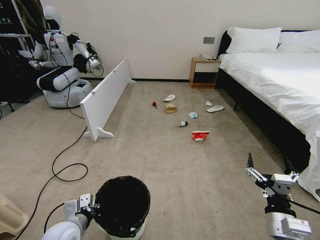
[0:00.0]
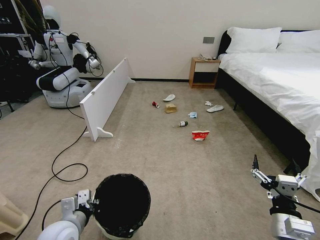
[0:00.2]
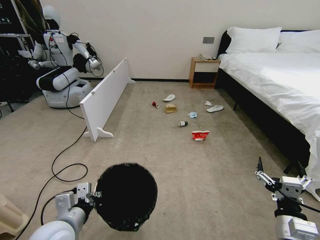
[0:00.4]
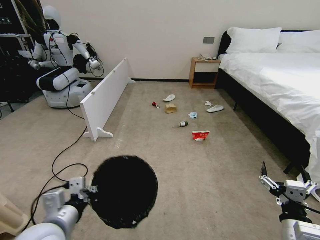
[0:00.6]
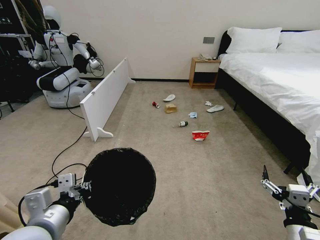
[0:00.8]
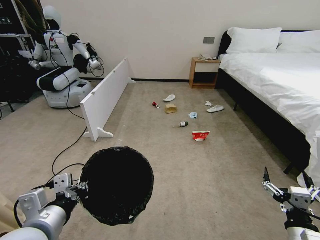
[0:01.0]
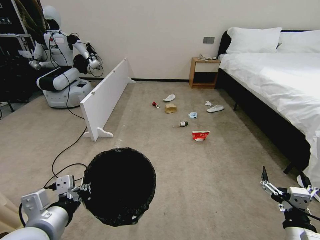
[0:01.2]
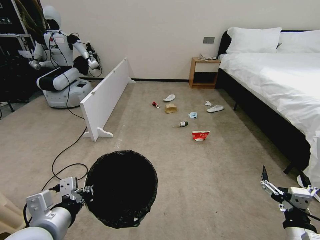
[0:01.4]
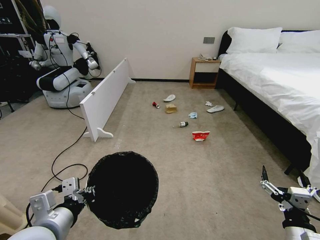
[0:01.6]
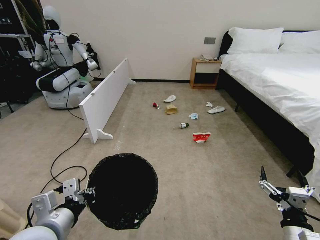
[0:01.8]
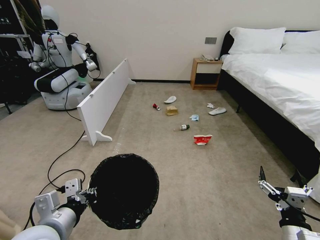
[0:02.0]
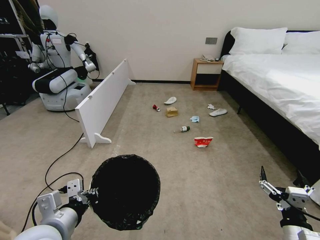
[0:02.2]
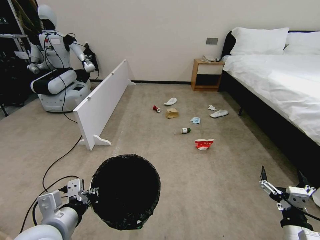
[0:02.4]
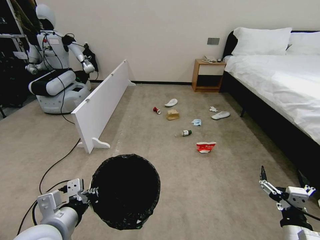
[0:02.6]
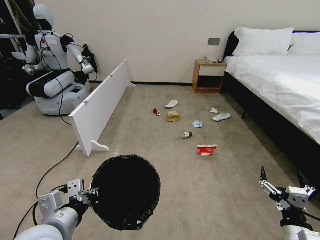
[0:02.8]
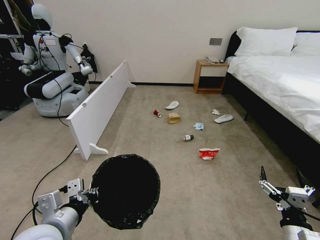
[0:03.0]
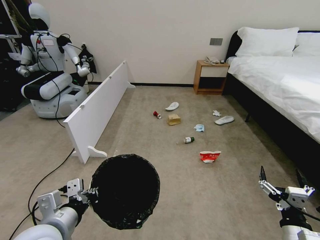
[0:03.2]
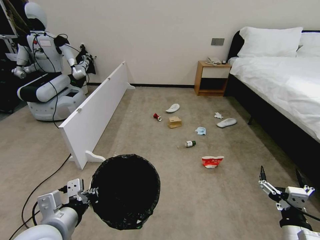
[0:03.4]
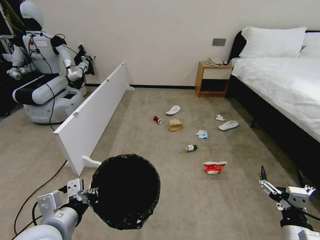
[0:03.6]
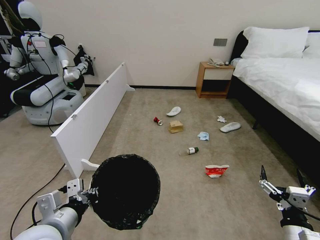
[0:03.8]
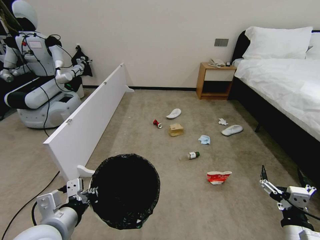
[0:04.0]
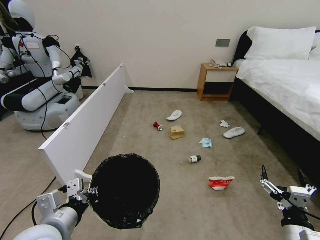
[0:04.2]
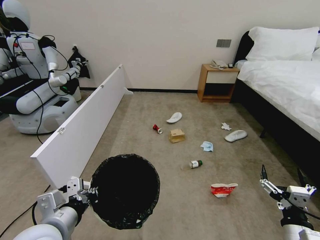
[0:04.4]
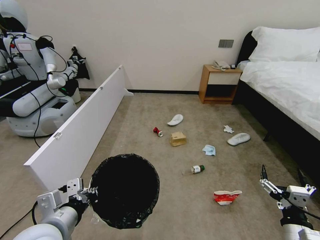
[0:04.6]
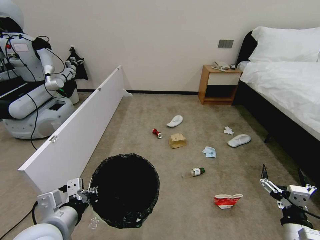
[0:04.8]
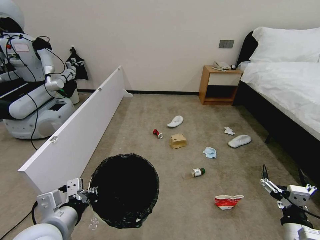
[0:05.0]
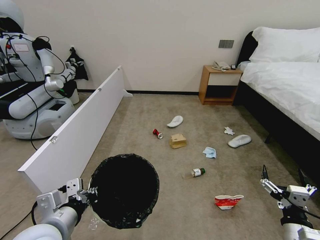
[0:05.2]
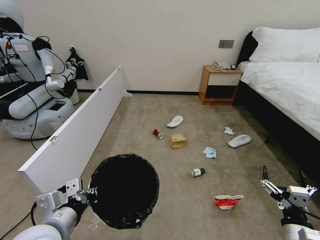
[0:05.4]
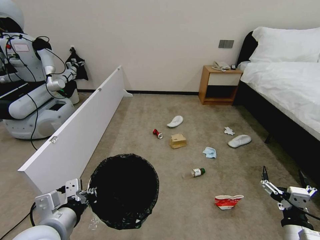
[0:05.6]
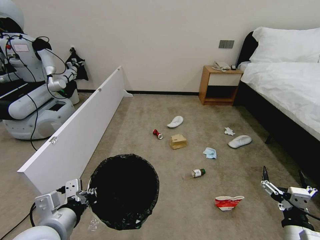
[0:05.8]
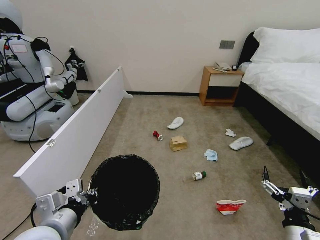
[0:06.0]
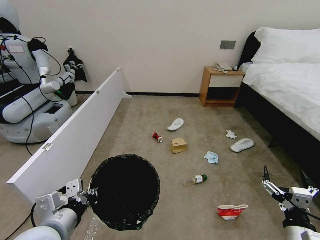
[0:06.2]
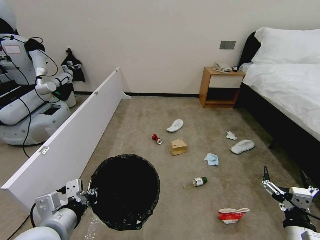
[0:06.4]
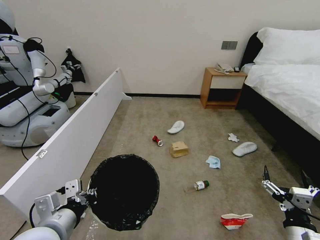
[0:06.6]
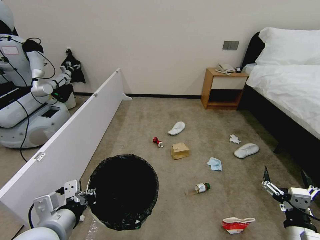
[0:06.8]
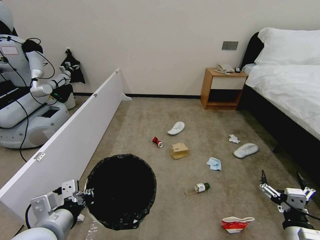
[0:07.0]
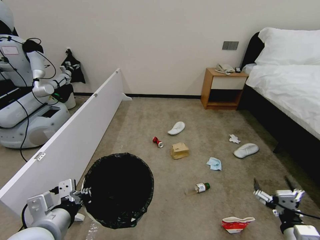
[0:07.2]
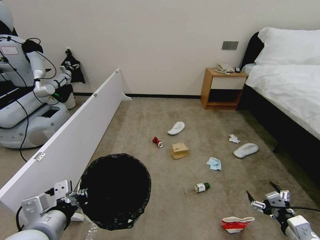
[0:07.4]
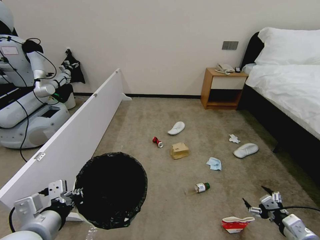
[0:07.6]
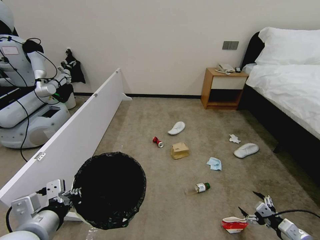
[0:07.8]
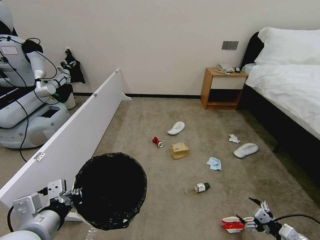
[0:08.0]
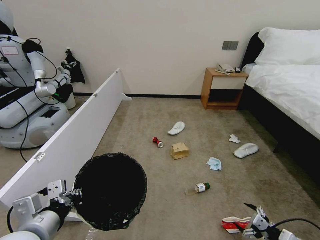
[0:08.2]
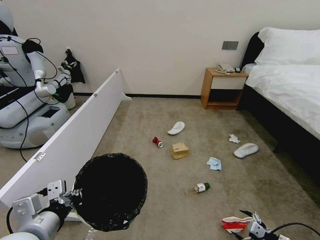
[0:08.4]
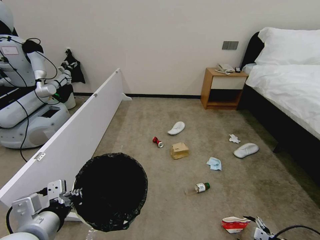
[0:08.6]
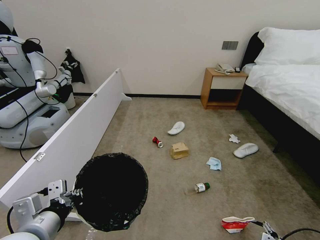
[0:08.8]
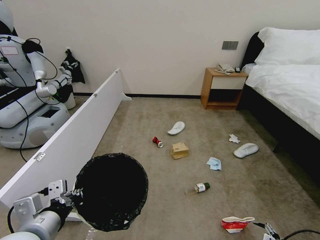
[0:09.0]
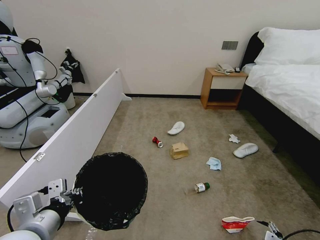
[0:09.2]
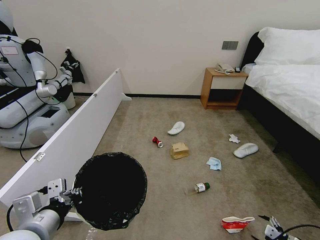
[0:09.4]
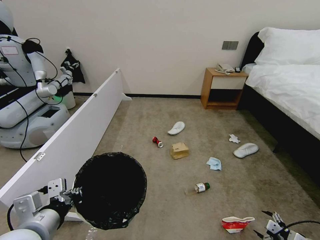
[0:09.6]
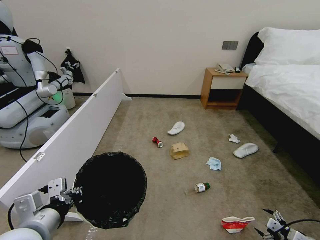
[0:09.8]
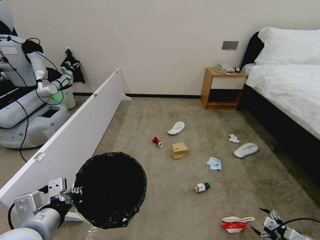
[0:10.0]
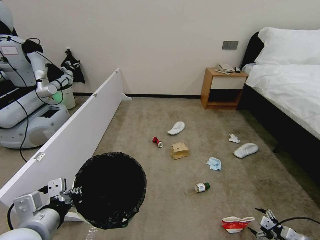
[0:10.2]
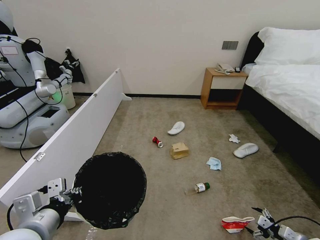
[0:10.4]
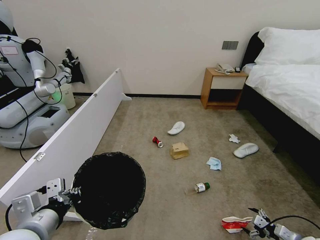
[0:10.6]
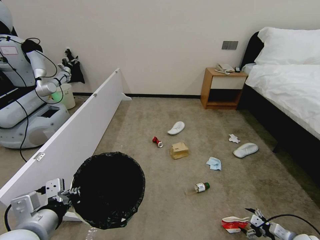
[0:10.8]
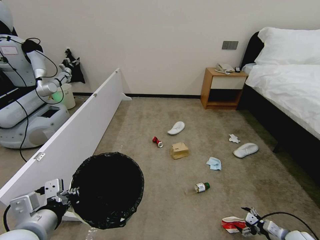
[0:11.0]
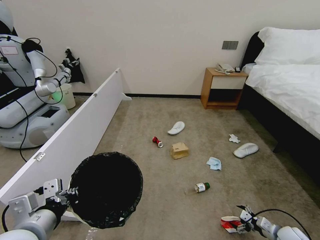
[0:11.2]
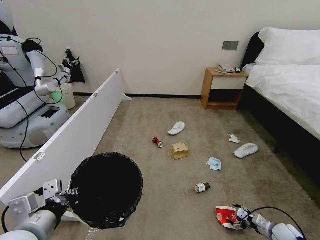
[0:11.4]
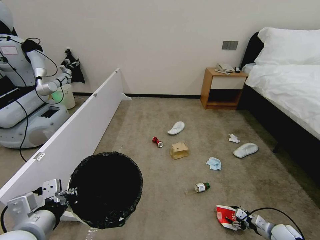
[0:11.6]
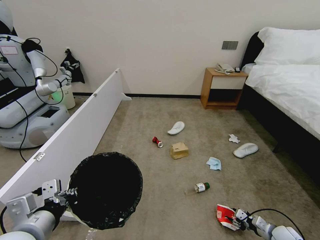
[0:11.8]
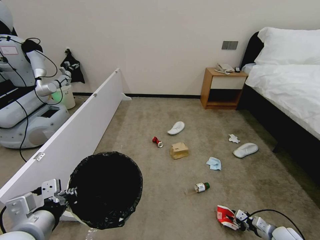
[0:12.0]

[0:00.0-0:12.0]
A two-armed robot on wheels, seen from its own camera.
Task of the whole recording: Pick up the trash bin, then pick up the garbage from the floor and place it into the trash bin.
0:00.0 to 0:01.6: The right gripper moves roughly 5 cm, while the left gripper goes about 15 cm upward and backward.
0:04.4 to 0:06.0: Both grippers stay put.
0:06.0 to 0:07.6: The right gripper goes approximately 10 cm to the right.
0:07.6 to 0:09.0: The right gripper heads downward and to the right, covering about 10 cm.
0:09.0 to 0:10.4: The right gripper is displaced forward by some 5 cm.
0:10.4 to 0:12.0: The right gripper is displaced downward and forward by some 10 cm, and closes up.

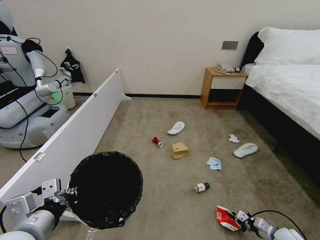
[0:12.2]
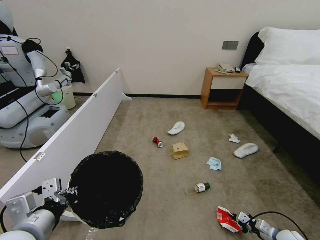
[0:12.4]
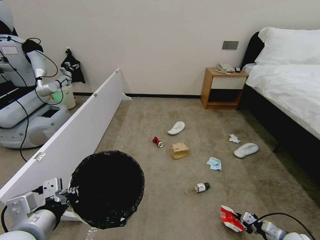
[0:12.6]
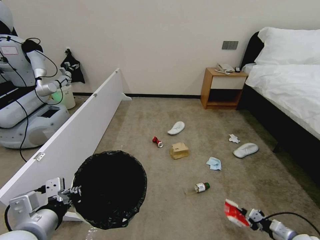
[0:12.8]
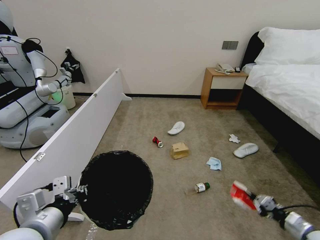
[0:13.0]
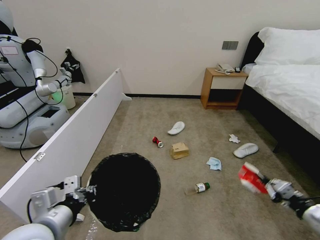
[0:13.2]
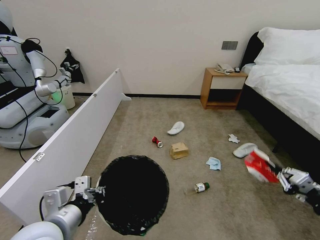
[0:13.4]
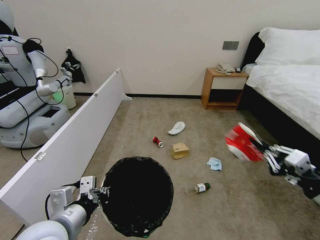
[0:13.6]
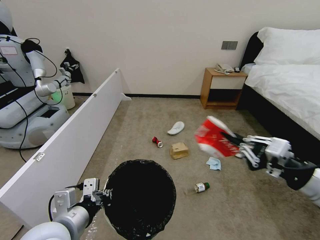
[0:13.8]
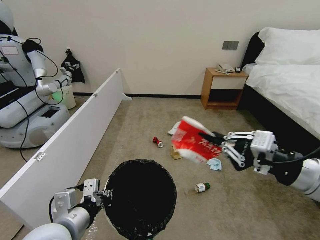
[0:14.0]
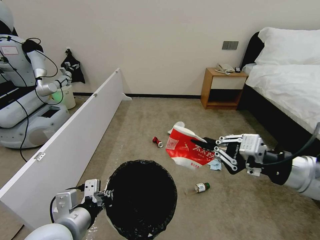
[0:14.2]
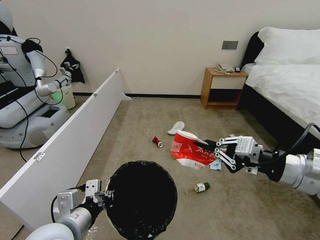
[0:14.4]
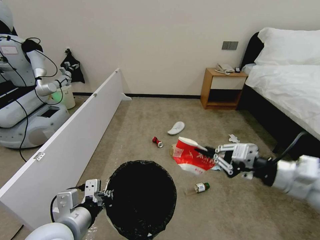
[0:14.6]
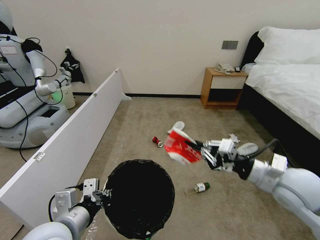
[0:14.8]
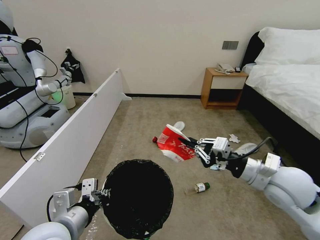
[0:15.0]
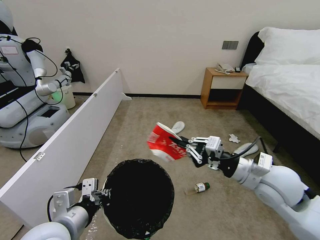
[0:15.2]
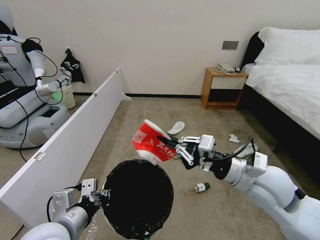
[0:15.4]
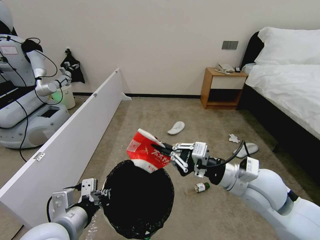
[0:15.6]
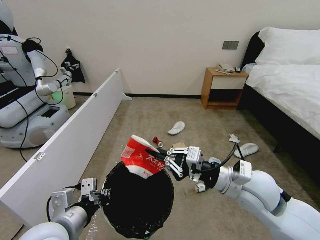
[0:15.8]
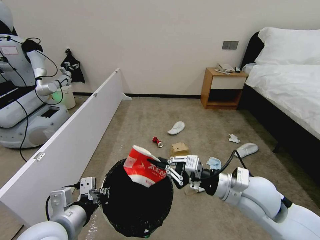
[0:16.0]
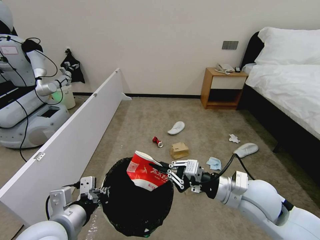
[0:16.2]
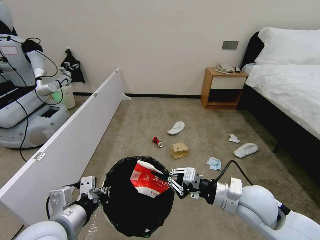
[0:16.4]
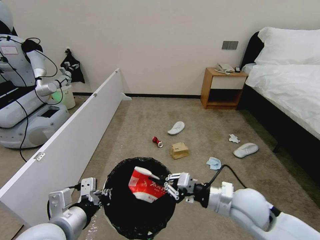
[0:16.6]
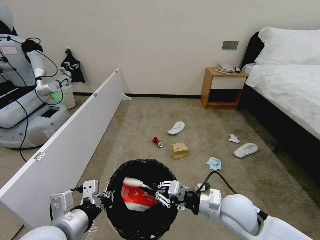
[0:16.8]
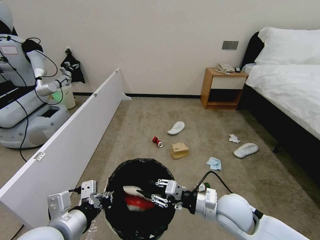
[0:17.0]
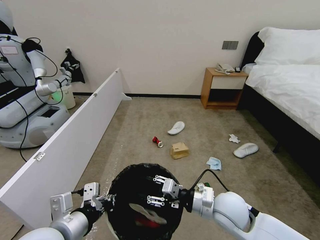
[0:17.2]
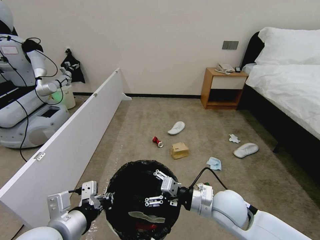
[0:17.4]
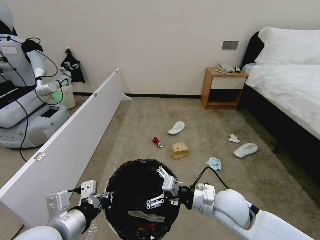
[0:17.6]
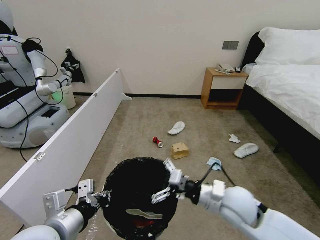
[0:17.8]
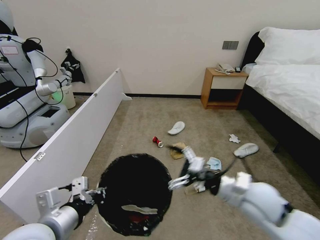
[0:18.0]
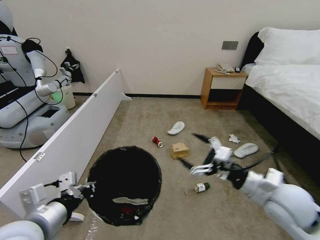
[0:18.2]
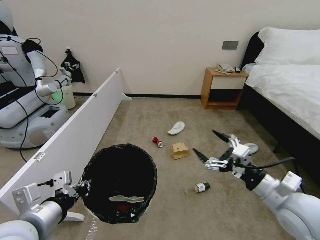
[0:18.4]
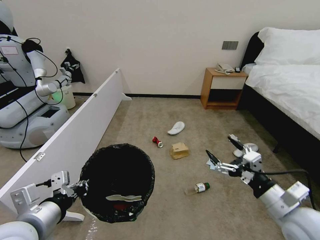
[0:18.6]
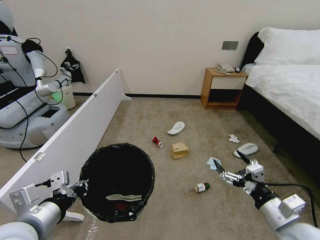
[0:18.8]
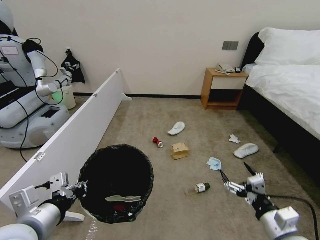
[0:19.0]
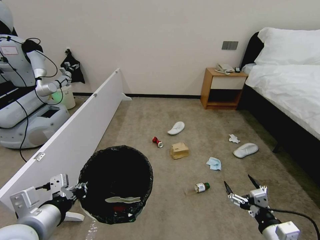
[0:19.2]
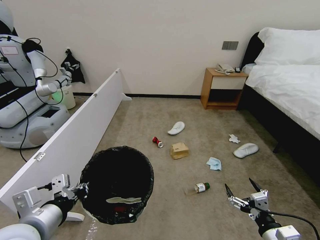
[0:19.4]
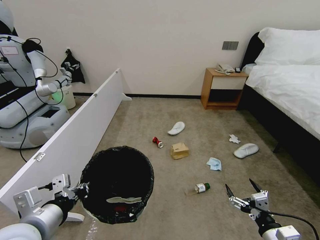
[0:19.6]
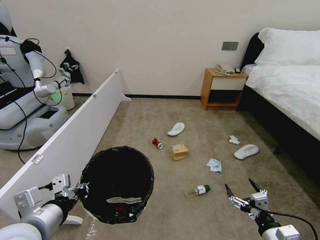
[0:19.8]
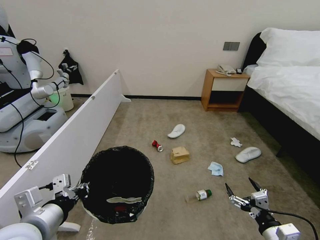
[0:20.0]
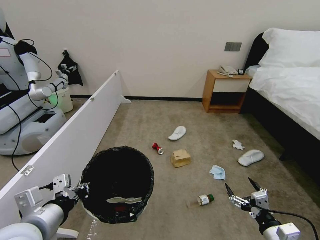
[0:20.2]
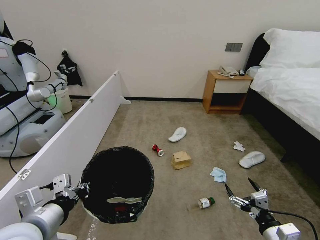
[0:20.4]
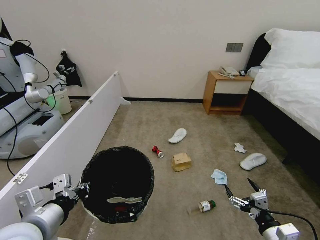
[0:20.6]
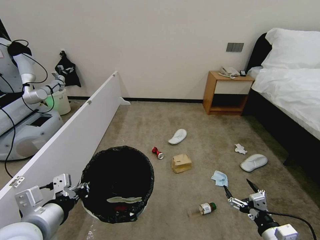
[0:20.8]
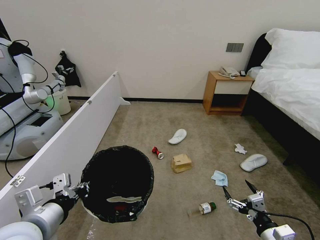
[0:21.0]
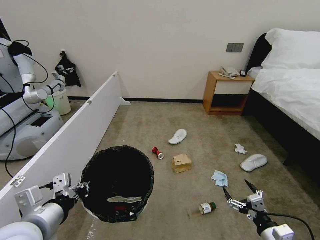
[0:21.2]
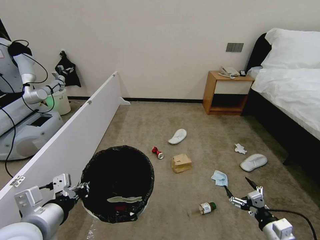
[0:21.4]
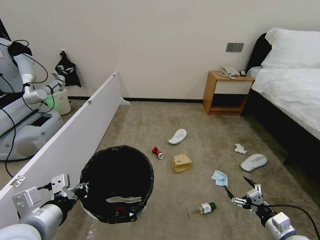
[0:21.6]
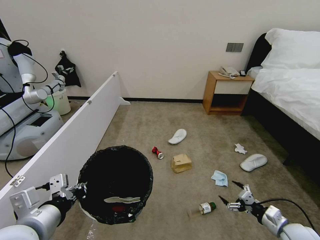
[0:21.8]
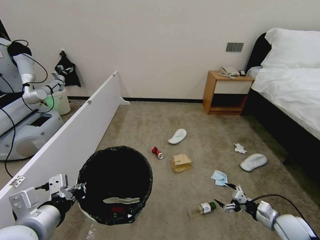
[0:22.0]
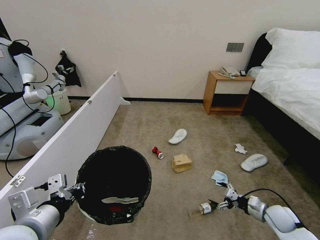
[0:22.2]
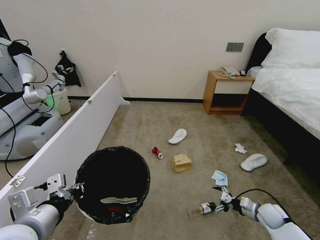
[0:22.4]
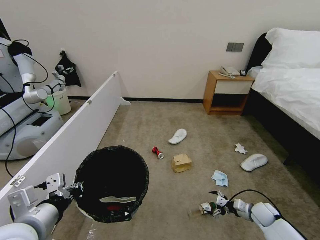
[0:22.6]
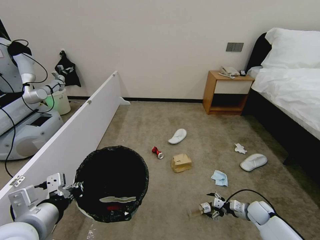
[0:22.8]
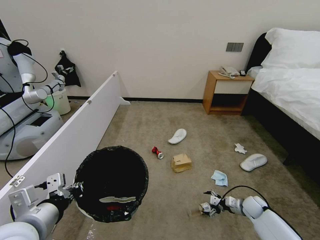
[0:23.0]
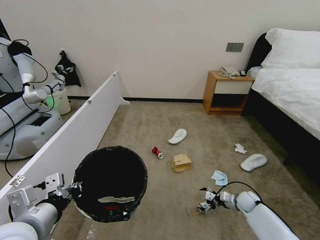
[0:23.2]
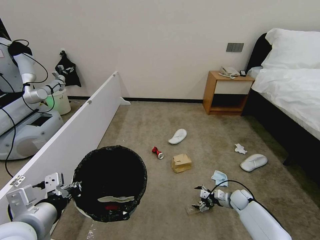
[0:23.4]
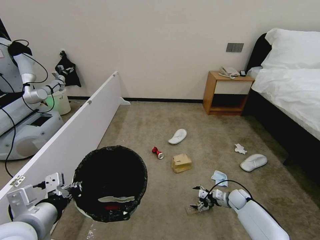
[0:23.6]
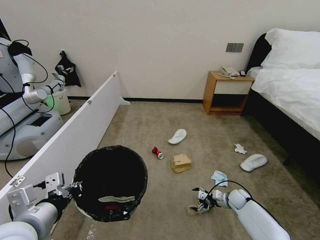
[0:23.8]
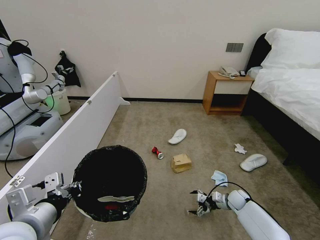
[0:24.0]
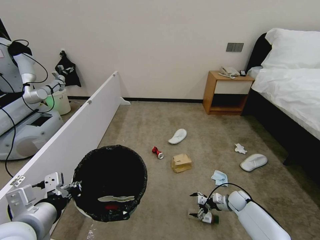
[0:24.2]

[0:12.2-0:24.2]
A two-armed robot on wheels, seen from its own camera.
Task of the whole recording: Pick up the trash bin, then pick up the garbage from the floor and place it into the trash bin.
0:12.2 to 0:13.8: The right gripper heads upward, covering approximately 40 cm; the left gripper changes place by some 5 cm.
0:13.8 to 0:15.2: The right gripper travels to the left and forward by about 15 cm.
0:15.2 to 0:16.6: The right gripper shifts approximately 10 cm downward.
0:16.6 to 0:18.2: The right gripper is displaced to the right and upward by roughly 10 cm, and opens.
0:18.2 to 0:19.8: The right gripper moves downward and backward, about 20 cm.
0:19.8 to 0:21.2: The grippers make only small movements.
0:21.2 to 0:22.6: The right gripper is displaced forward and downward by some 20 cm.
0:22.6 to 0:24.2: The right gripper heads forward and to the left, covering about 10 cm.
